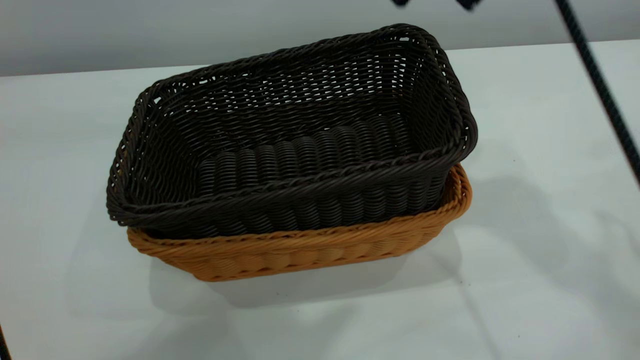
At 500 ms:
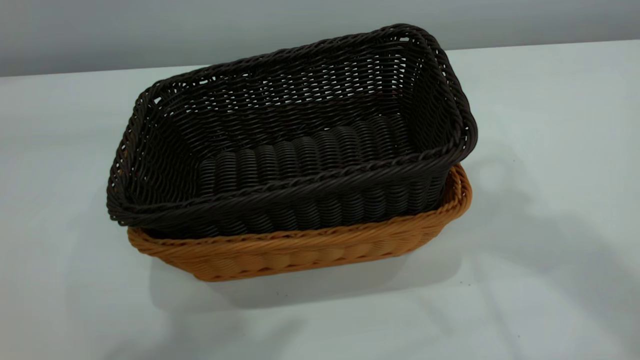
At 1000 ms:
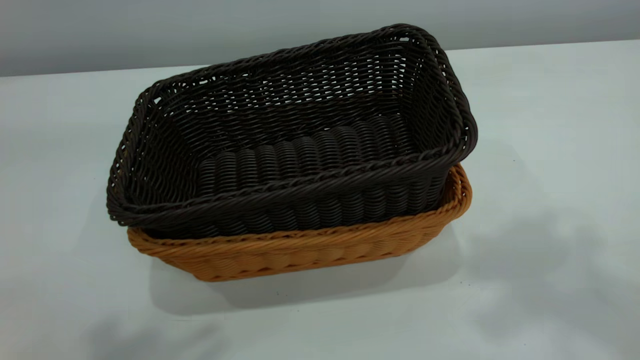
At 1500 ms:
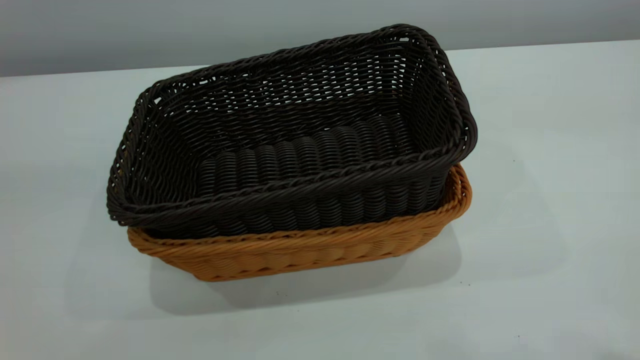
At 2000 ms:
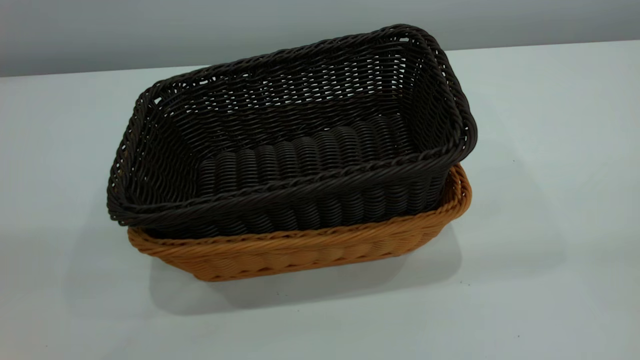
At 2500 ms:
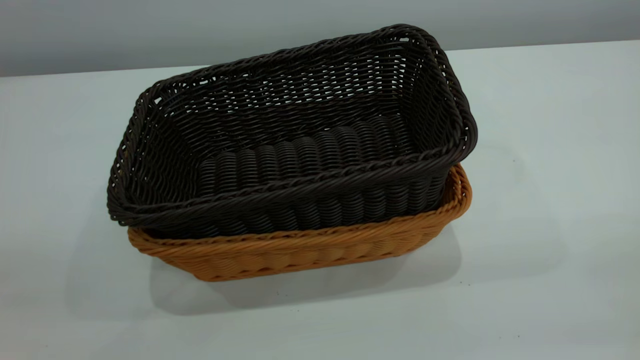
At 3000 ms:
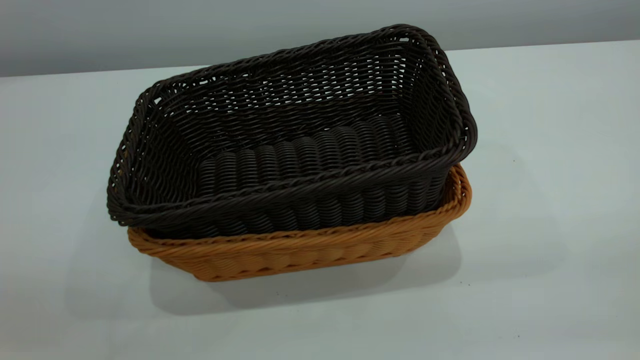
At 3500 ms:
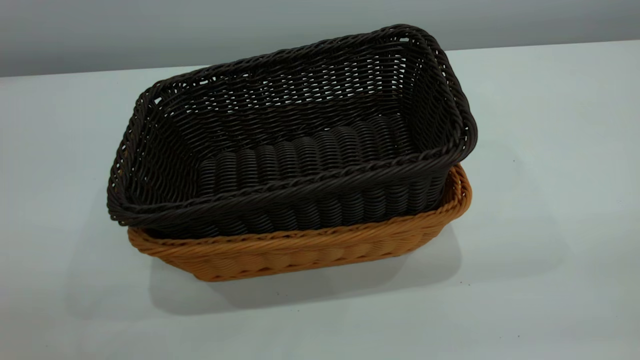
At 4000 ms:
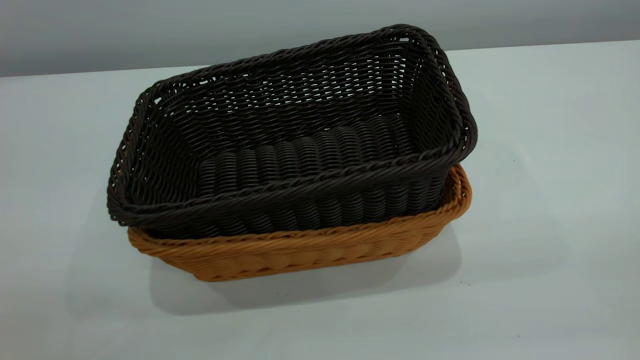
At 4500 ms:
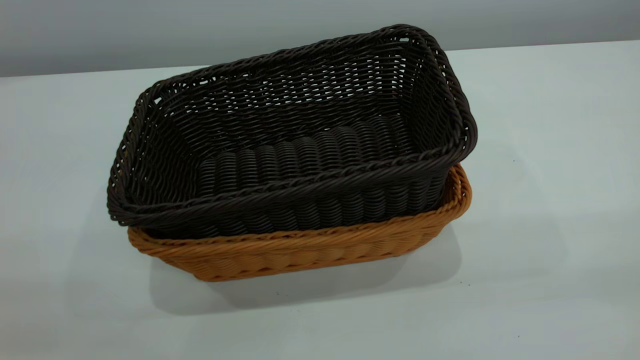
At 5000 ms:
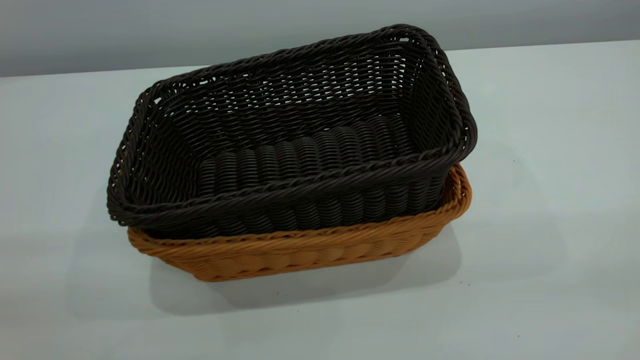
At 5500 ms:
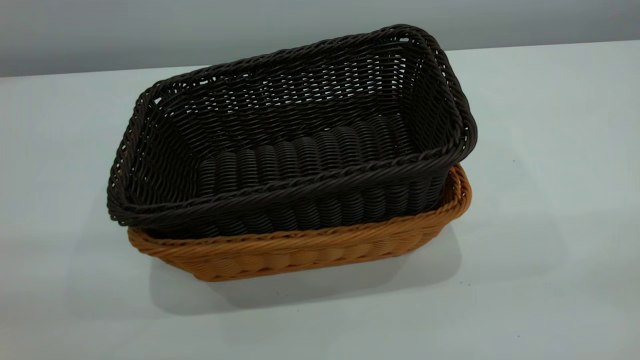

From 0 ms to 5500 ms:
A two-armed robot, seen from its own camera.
Task of the whole recording: the left gripper grasp the brown basket and place it in the center of the table, the right gripper grasp the black basket and place it inside the brown one.
From 0 ms to 2000 ms: The right gripper shifts roughly 35 cm backward and to the right, and closes, while the left gripper moves backward, to the left and downward, about 20 cm, and closes up.
